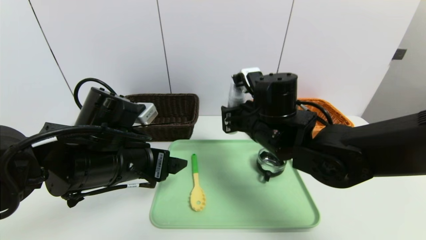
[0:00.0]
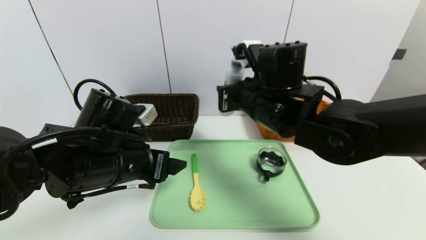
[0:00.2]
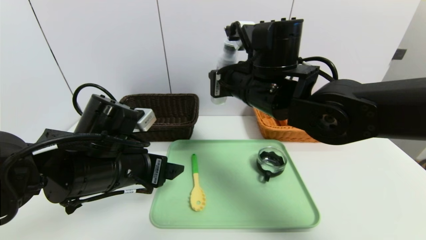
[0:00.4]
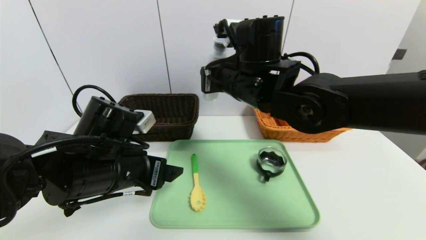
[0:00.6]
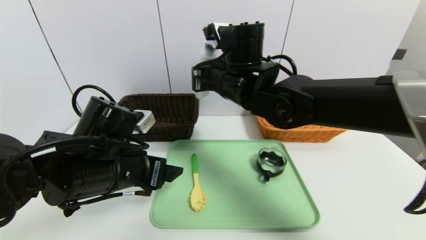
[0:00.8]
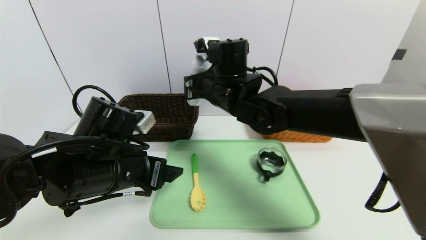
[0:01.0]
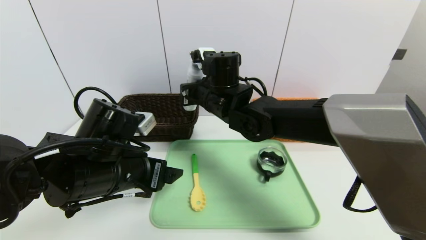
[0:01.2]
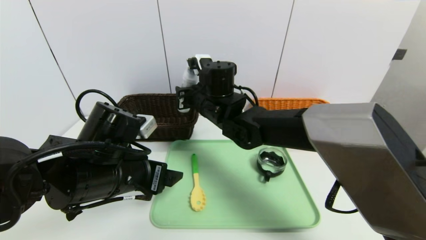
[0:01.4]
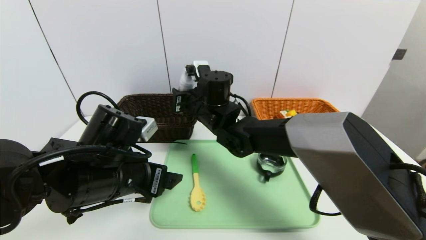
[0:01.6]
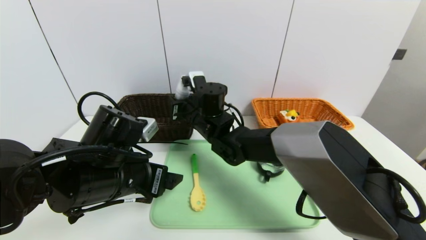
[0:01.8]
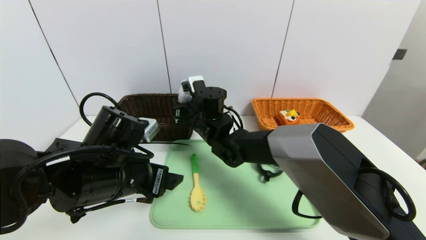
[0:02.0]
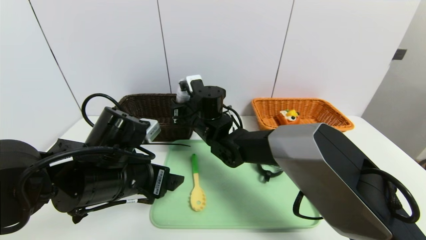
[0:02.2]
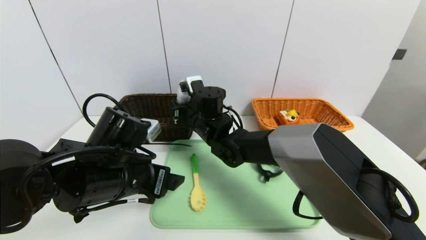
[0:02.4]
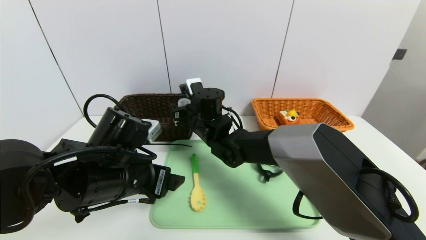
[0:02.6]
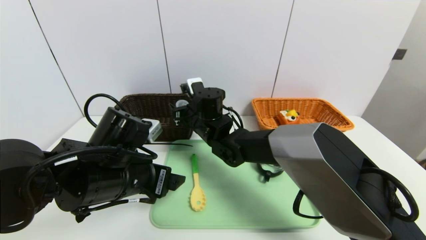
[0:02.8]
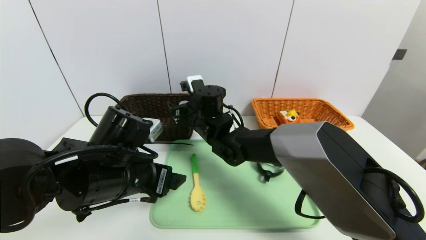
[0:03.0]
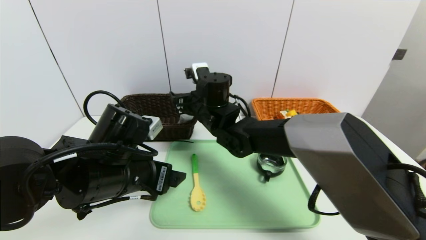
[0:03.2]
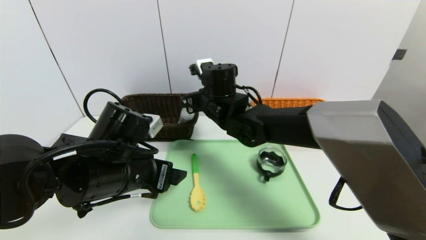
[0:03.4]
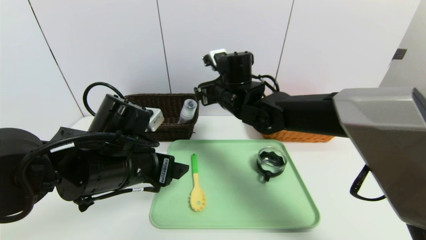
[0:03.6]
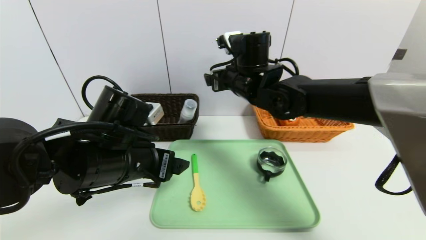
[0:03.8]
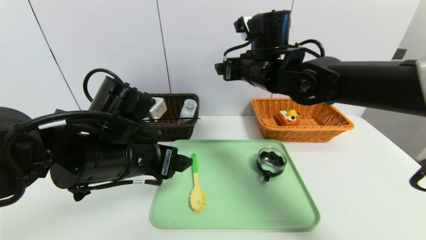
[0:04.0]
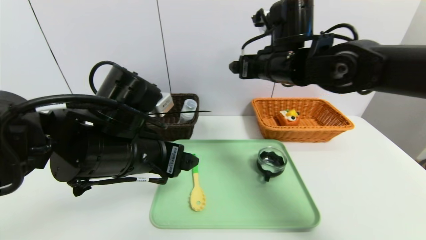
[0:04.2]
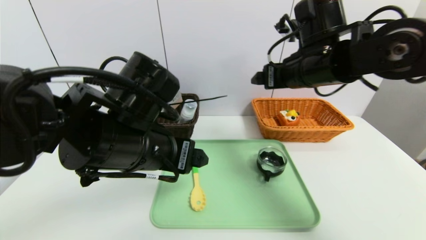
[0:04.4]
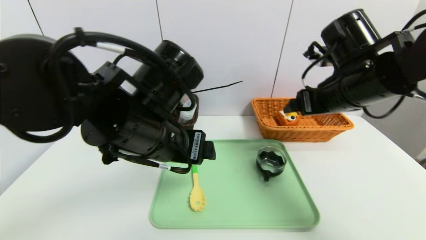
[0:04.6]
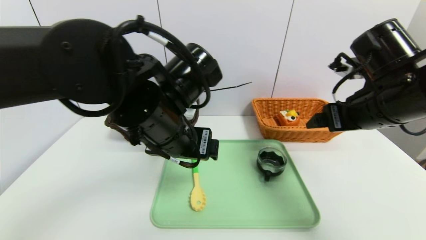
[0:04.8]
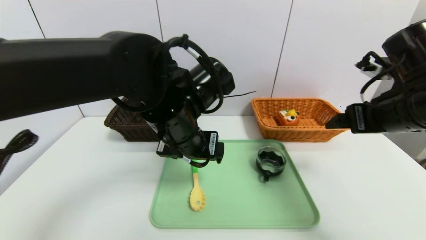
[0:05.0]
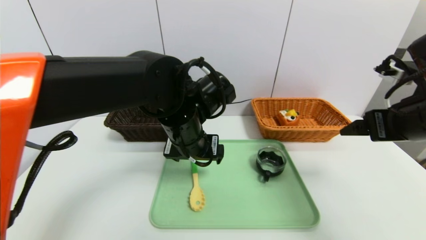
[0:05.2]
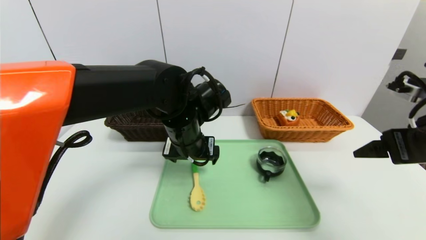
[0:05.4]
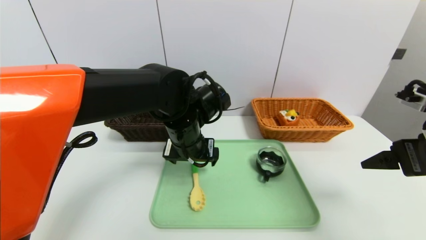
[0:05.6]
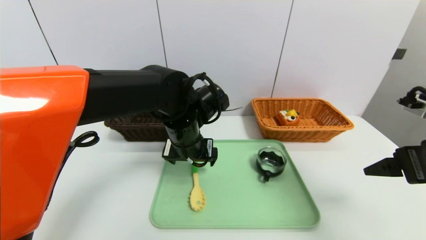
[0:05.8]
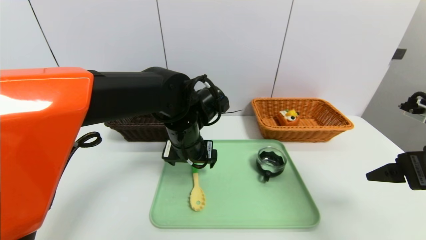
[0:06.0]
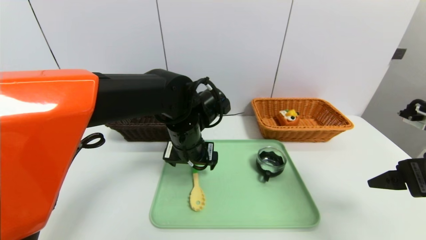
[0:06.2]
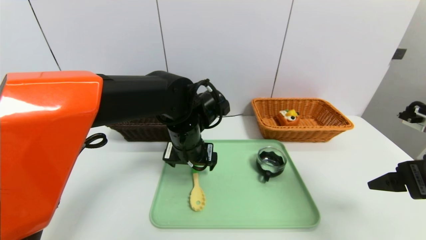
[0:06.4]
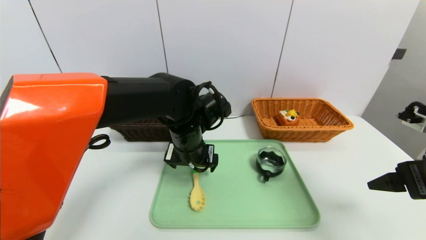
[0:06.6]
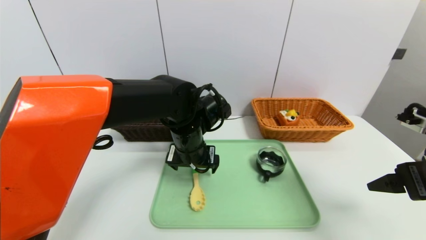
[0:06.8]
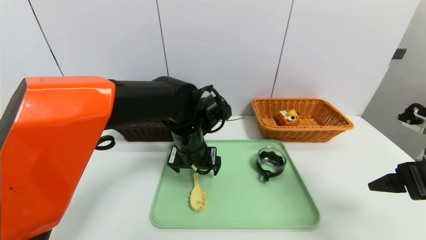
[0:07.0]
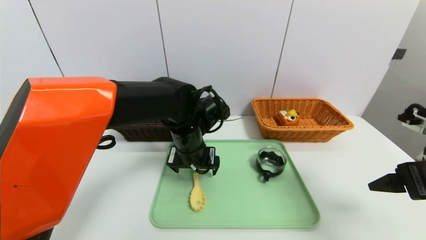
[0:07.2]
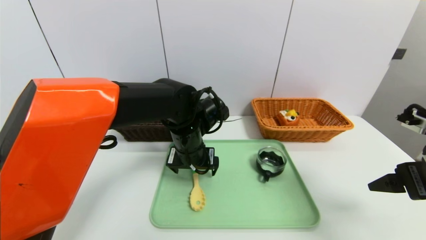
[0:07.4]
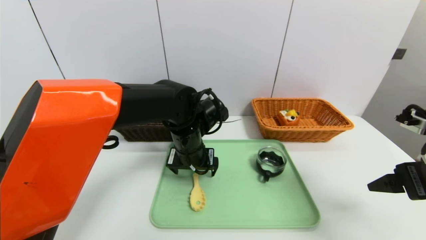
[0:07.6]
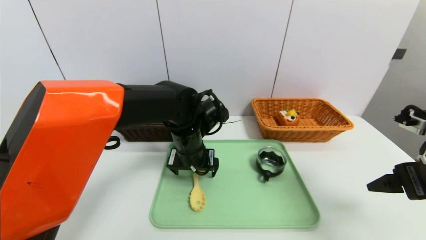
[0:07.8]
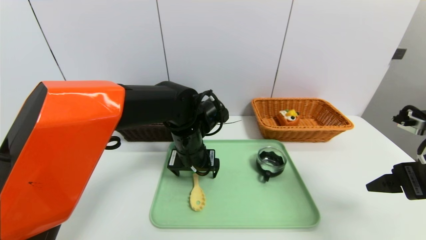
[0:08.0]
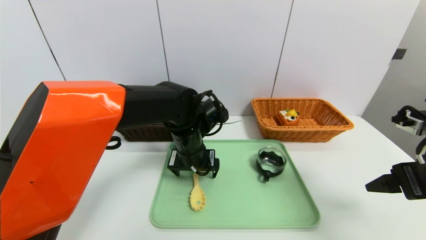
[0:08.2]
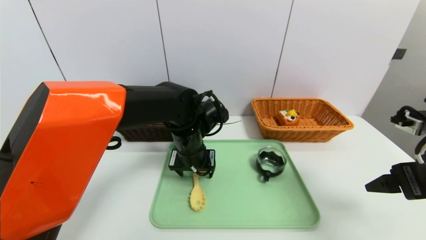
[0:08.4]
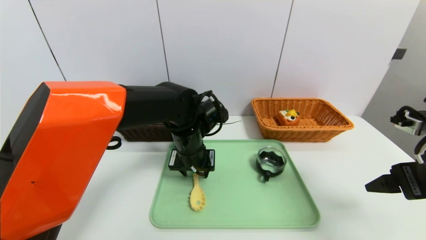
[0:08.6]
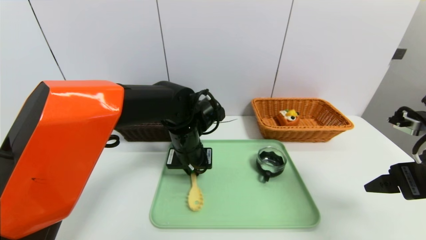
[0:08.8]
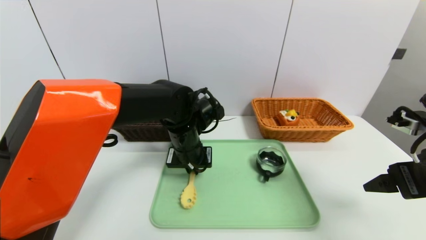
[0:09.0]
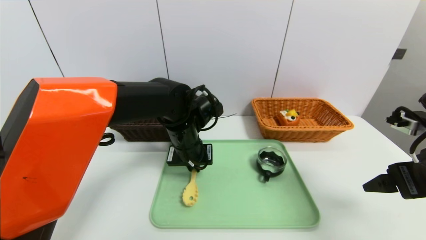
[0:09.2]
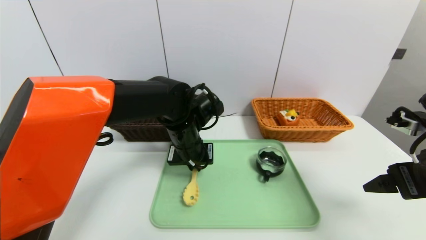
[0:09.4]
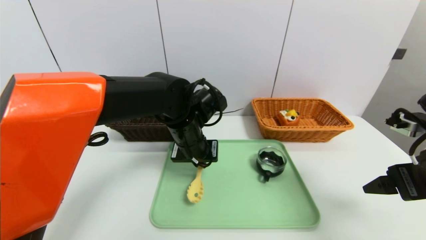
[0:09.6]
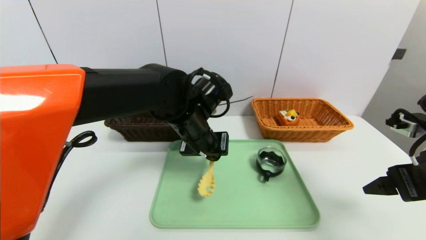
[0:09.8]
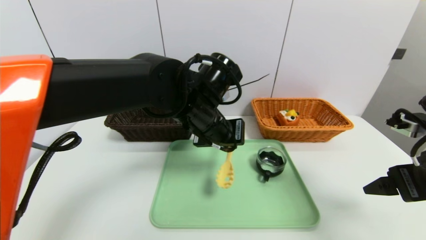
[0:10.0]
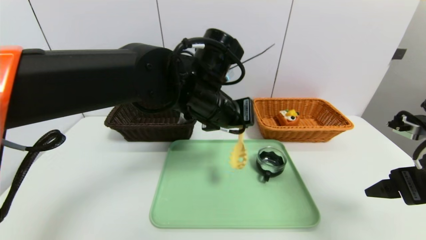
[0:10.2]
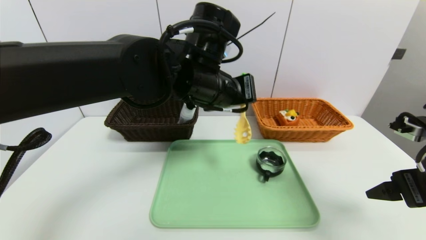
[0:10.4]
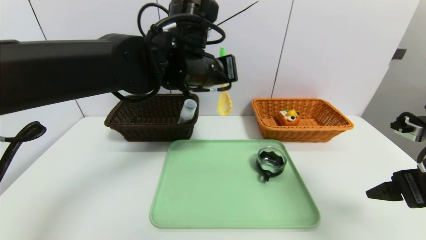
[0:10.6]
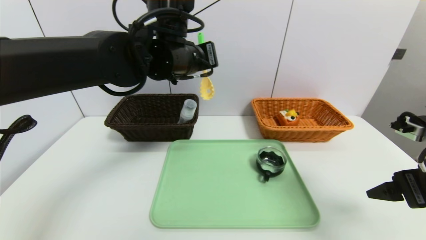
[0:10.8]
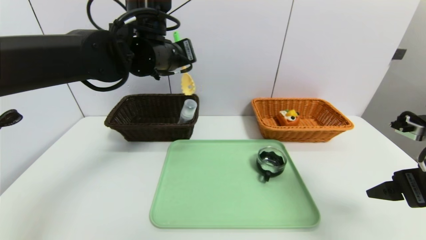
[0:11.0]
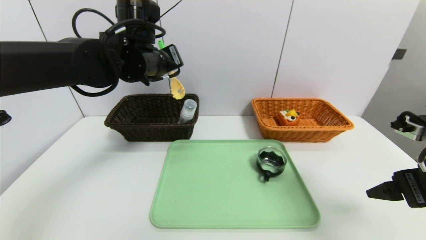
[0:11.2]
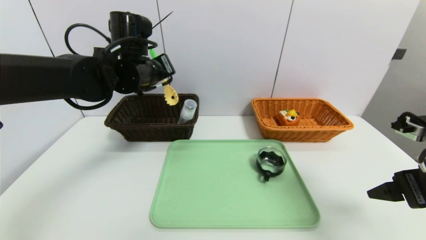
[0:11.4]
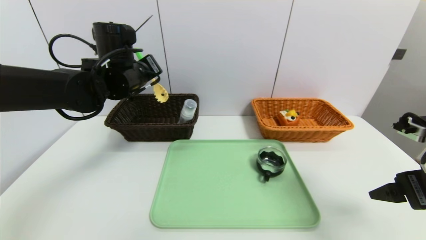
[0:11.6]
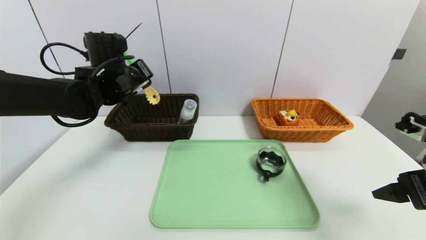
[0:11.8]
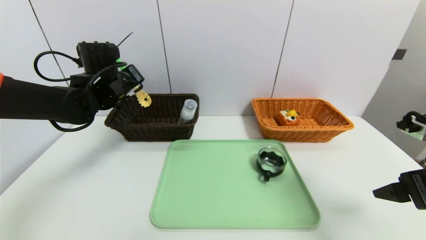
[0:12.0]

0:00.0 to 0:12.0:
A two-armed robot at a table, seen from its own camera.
Task of the whole recording: place the food in the right basket with the right gripper, and place the non food items in the left basket with the left gripper.
0:00.0 to 0:01.6: The right gripper goes approximately 15 cm to the left and forward.
0:01.6 to 0:03.0: The right gripper opens up.
0:03.0 to 0:04.4: The left gripper shifts approximately 5 cm upward. Meanwhile the right gripper goes some 25 cm to the right and upward.
0:04.4 to 0:06.0: The right gripper is displaced backward and to the right by some 20 cm; the left gripper travels forward, downward and to the right by approximately 15 cm.
0:06.0 to 0:07.6: The grippers make only small movements.
0:07.6 to 0:09.0: The left gripper closes its fingers.
0:09.0 to 0:10.4: The left gripper travels upward by roughly 15 cm.
0:10.4 to 0:12.0: The left gripper goes about 20 cm to the left and forward.

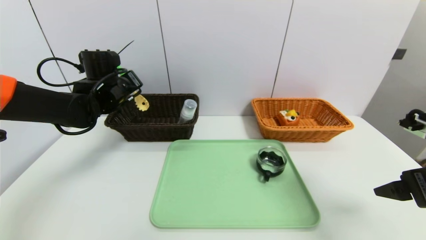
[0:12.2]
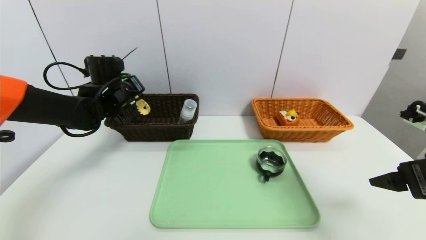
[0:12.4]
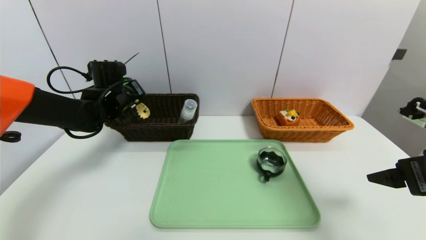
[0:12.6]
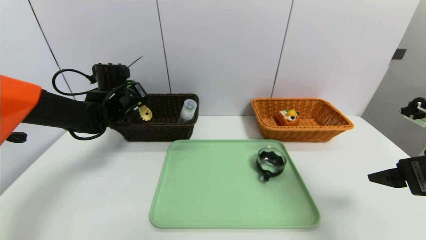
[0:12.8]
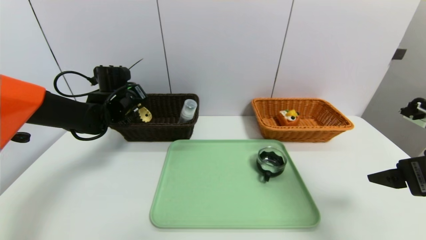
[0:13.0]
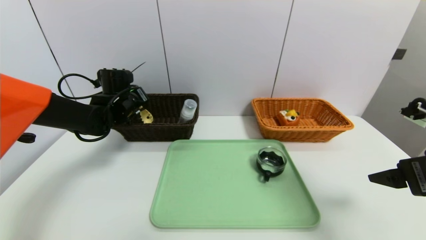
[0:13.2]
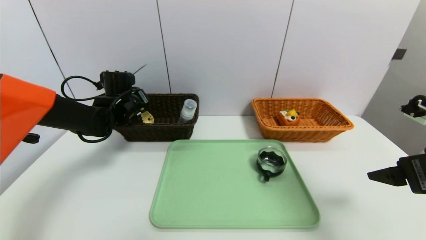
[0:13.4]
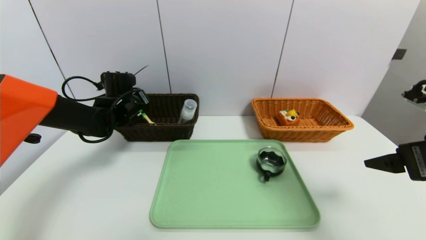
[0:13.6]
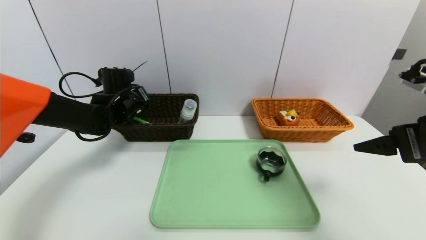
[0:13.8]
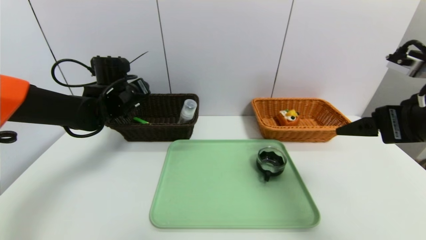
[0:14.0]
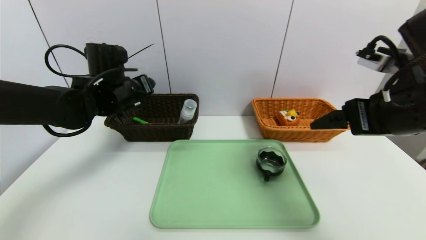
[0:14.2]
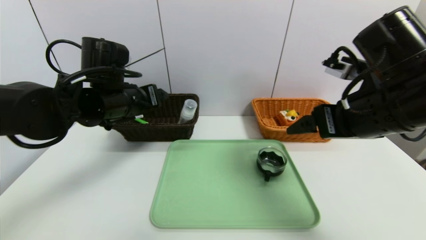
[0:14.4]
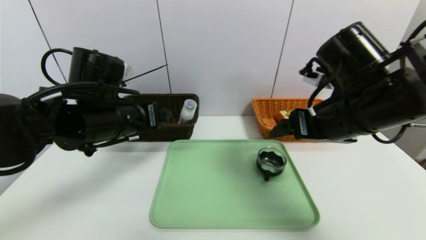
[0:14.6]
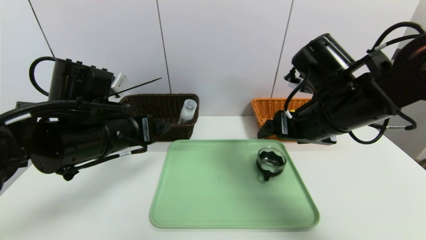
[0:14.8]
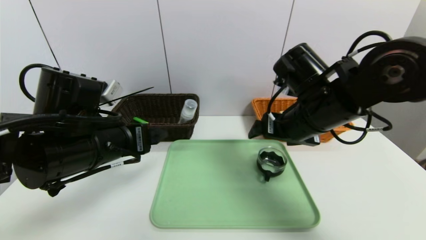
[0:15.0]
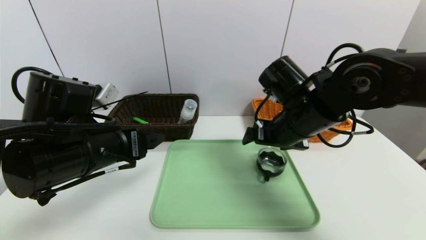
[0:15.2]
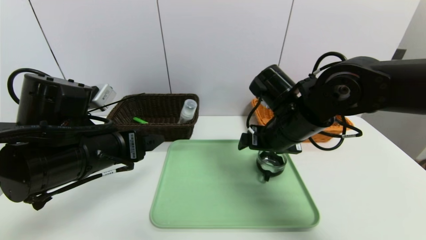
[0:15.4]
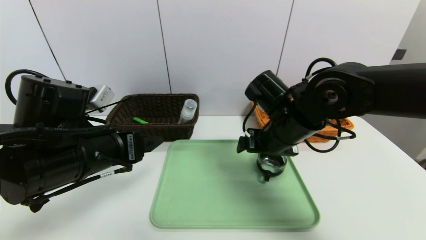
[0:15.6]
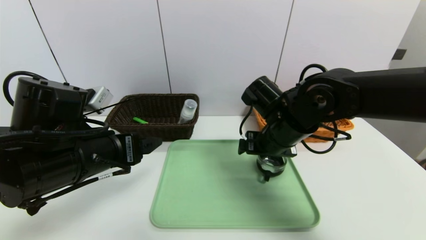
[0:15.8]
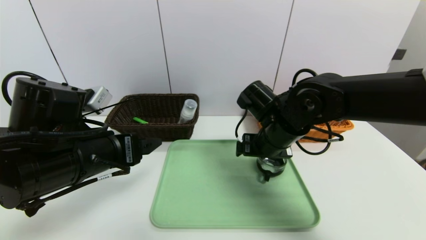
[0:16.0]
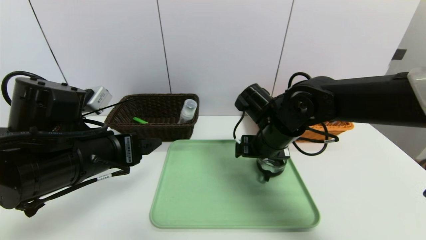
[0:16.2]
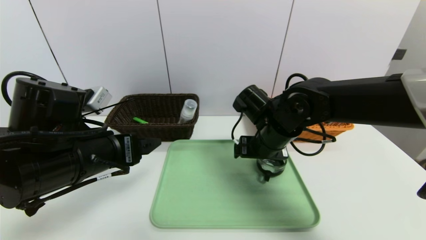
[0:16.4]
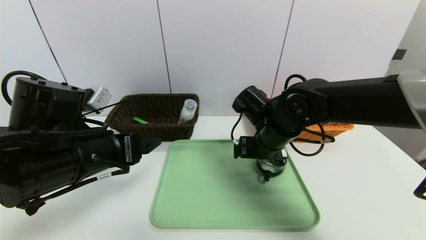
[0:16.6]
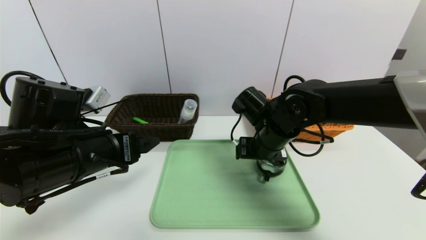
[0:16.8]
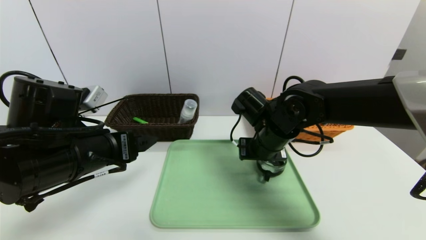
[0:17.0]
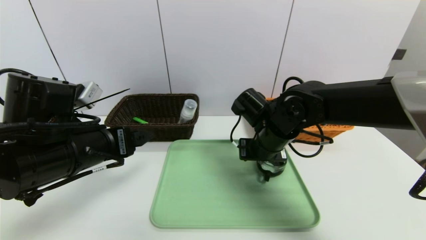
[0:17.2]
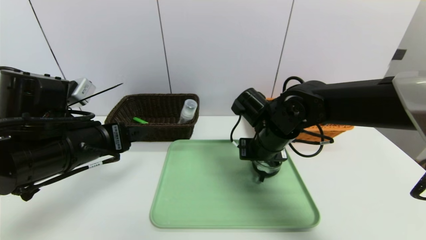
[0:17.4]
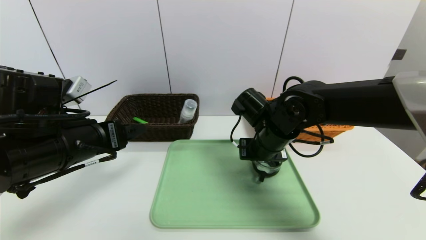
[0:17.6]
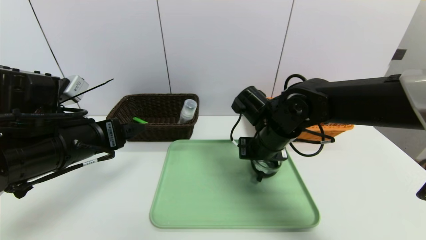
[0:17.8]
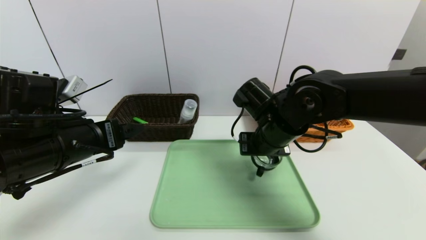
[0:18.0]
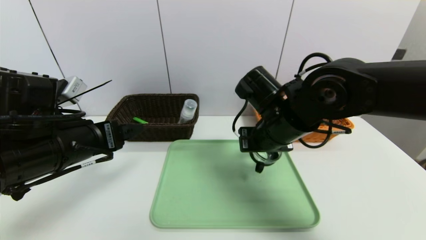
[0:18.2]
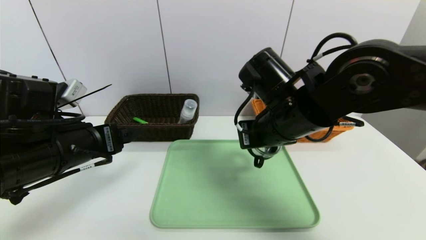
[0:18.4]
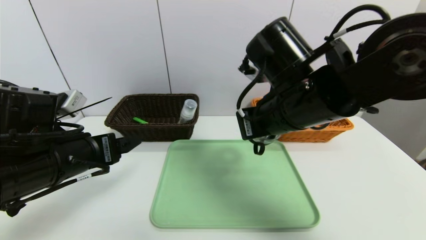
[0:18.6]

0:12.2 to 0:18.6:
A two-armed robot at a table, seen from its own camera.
Task of the whole recording: place the food in the right basket with the right gripper, and place the non food items in the left basket with the left gripper.
0:12.2 to 0:13.8: The left gripper opens its fingers. Meanwhile the right gripper changes place by about 5 cm.
0:13.8 to 0:15.4: The left gripper heads backward, covering about 20 cm, and opens; the right gripper goes approximately 20 cm to the left and forward.
0:15.4 to 0:17.0: The right gripper changes place by some 5 cm, and closes.
0:17.0 to 0:18.6: The right gripper is displaced upward and backward by approximately 15 cm, and closes.
